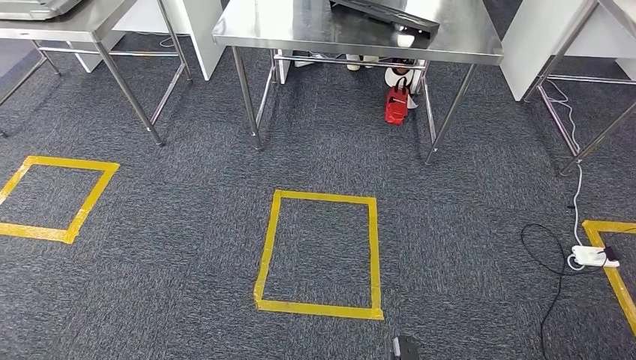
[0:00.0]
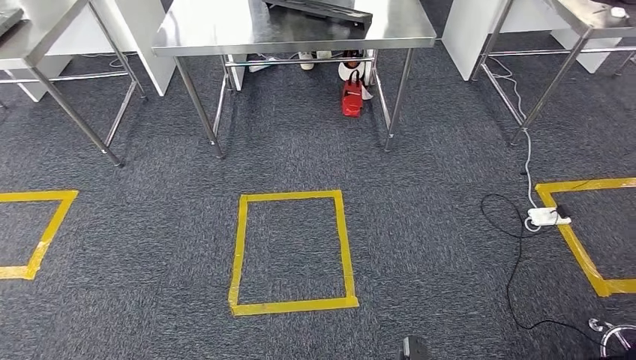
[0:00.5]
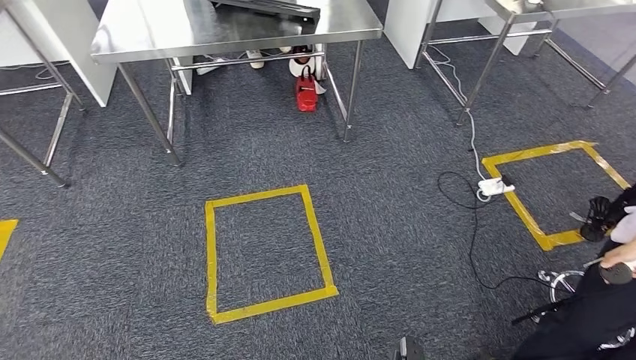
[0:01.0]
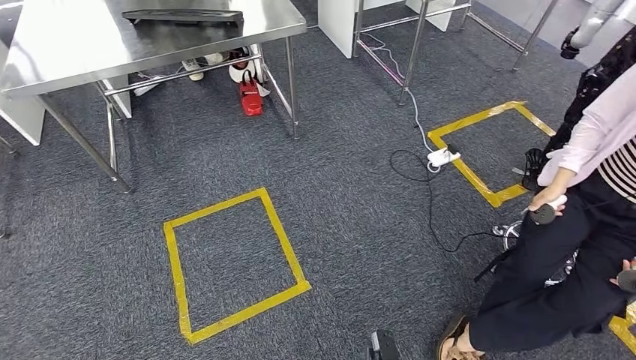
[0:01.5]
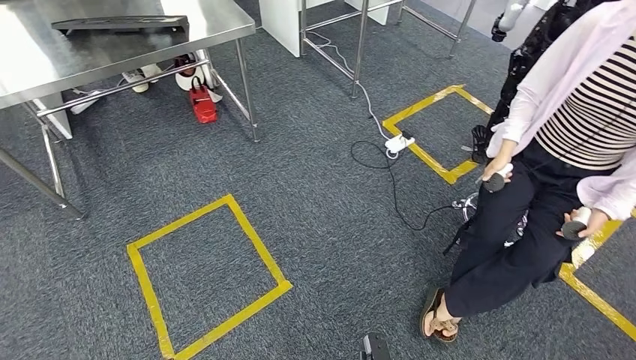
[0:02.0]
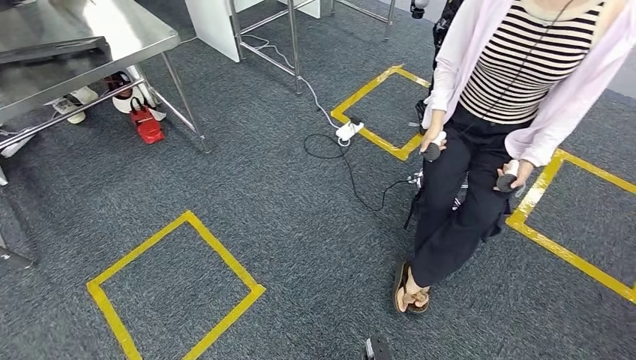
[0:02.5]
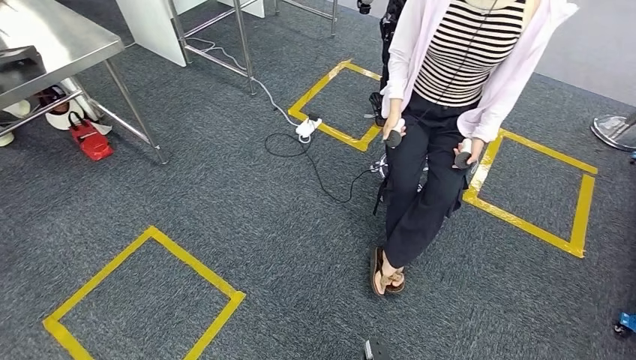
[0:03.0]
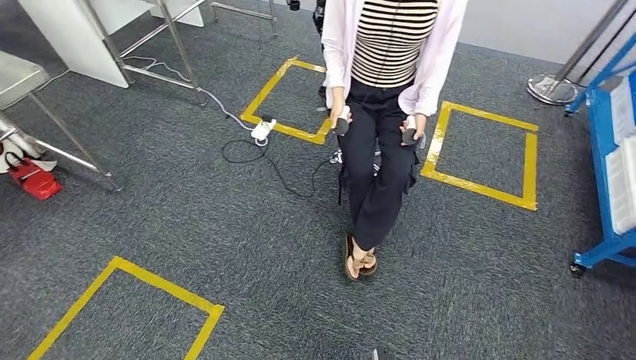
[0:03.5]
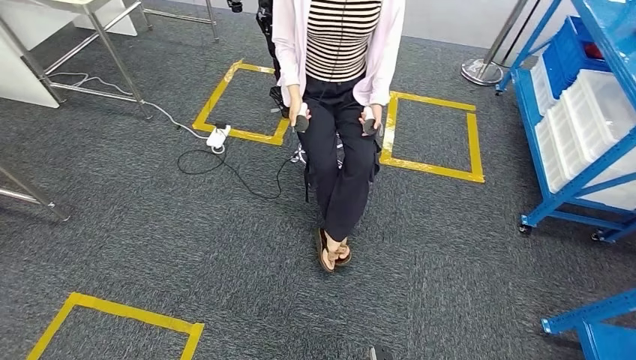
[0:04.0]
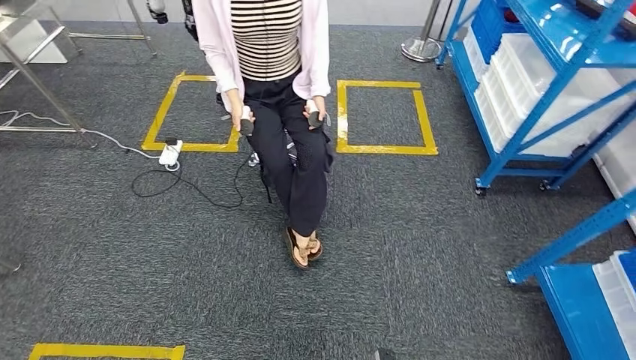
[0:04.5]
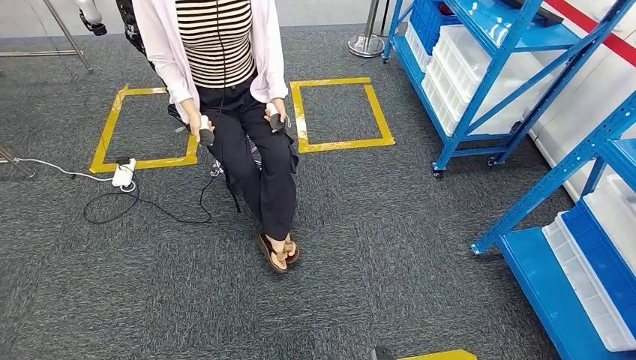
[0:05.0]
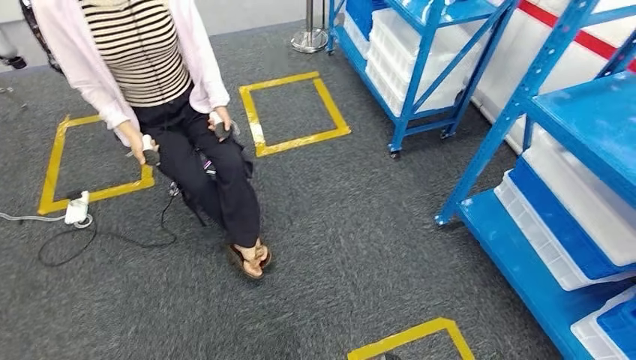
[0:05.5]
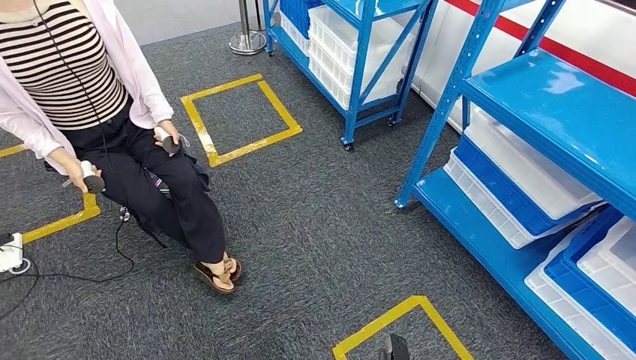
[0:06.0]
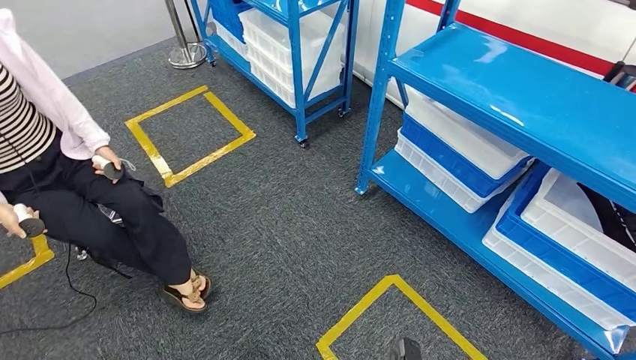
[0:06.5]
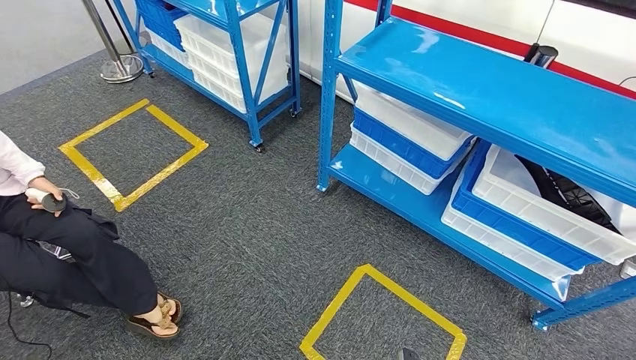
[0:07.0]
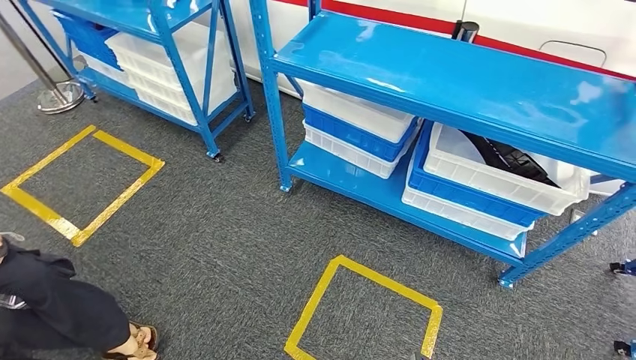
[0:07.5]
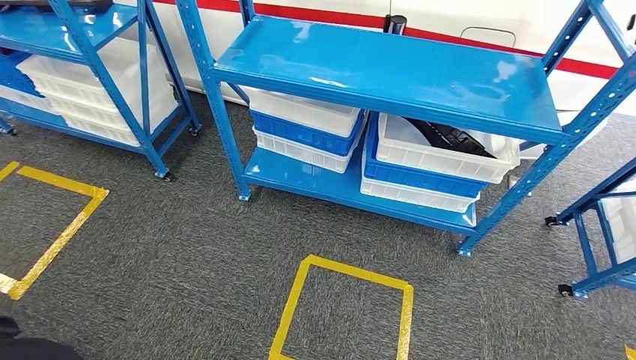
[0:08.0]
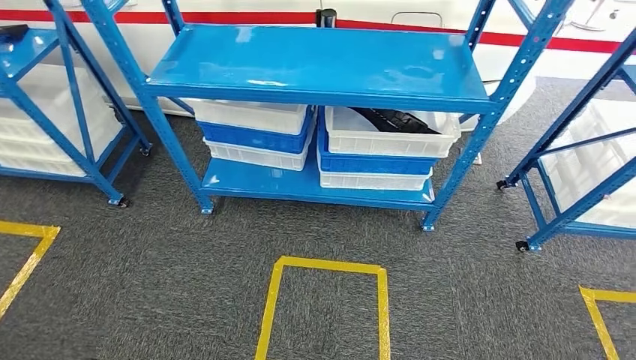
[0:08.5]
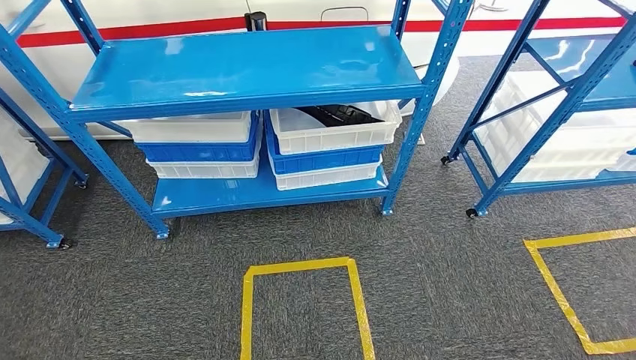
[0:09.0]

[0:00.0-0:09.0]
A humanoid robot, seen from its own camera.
Step, 0:00.0 to 0:08.5: Return to the initial position at the shelf.

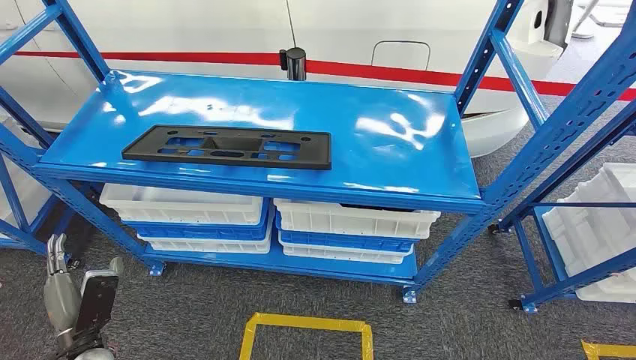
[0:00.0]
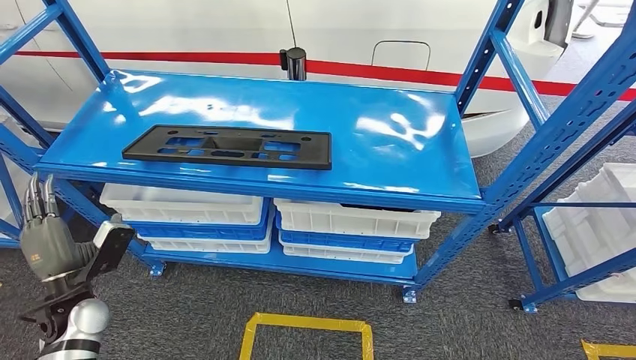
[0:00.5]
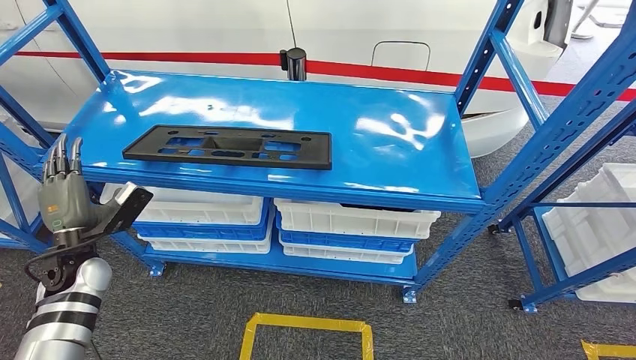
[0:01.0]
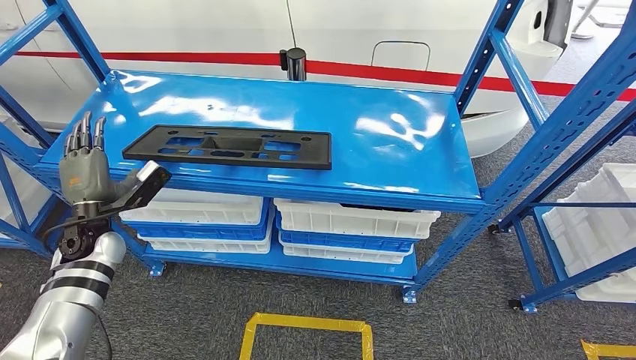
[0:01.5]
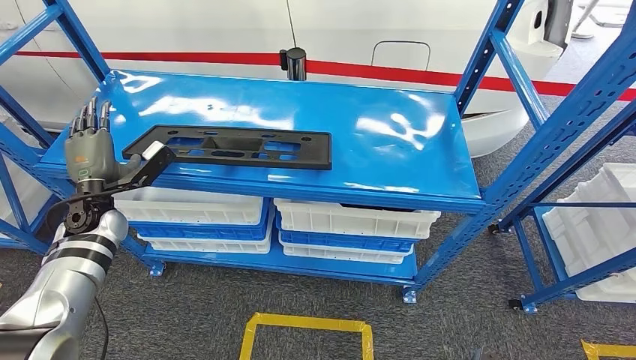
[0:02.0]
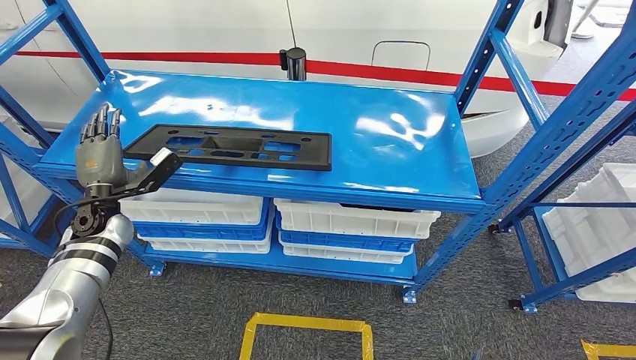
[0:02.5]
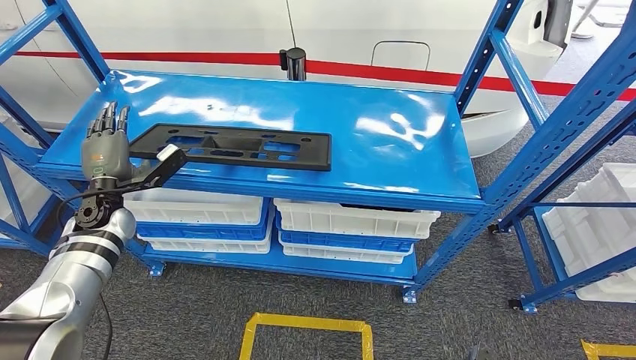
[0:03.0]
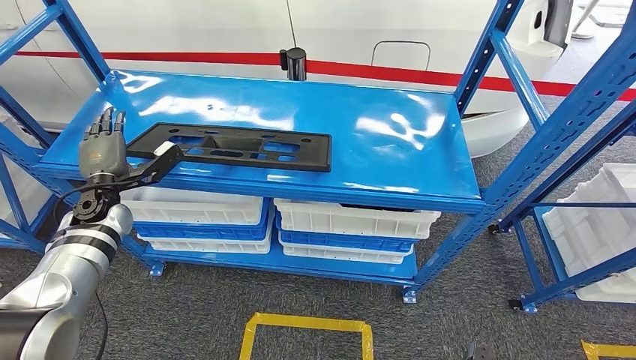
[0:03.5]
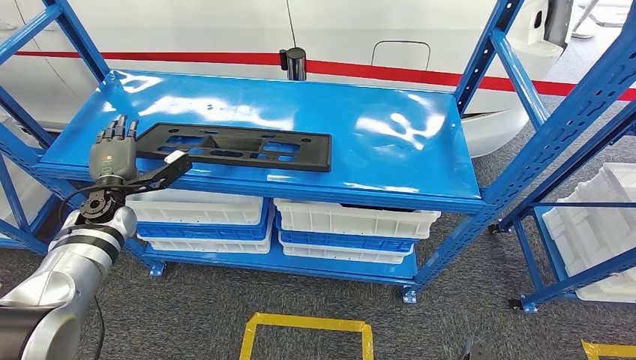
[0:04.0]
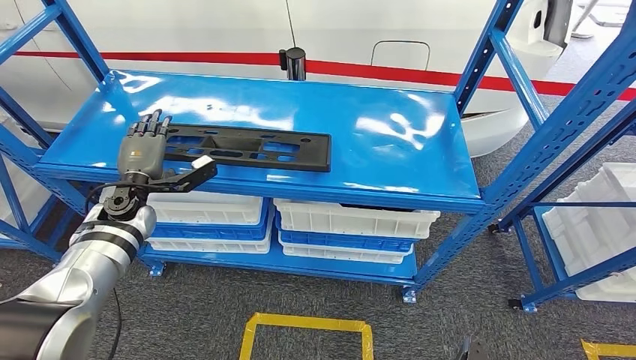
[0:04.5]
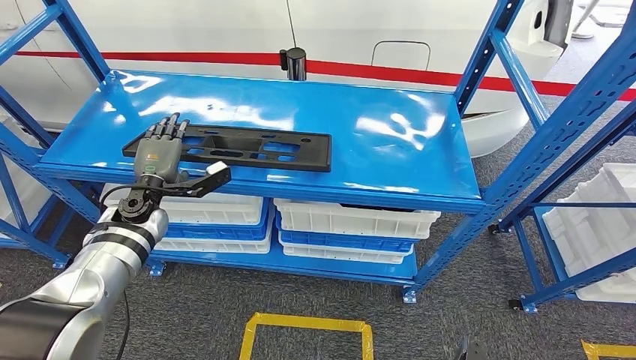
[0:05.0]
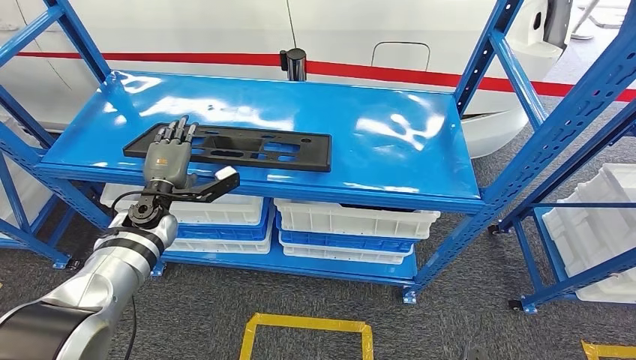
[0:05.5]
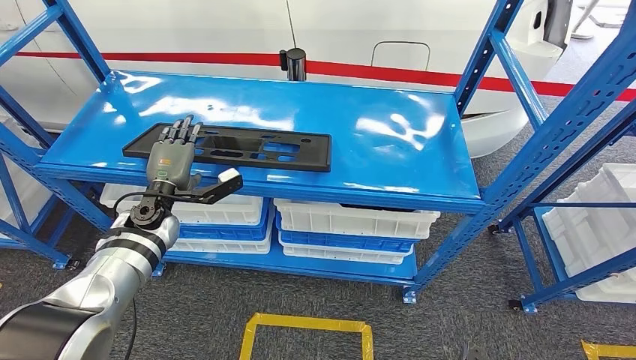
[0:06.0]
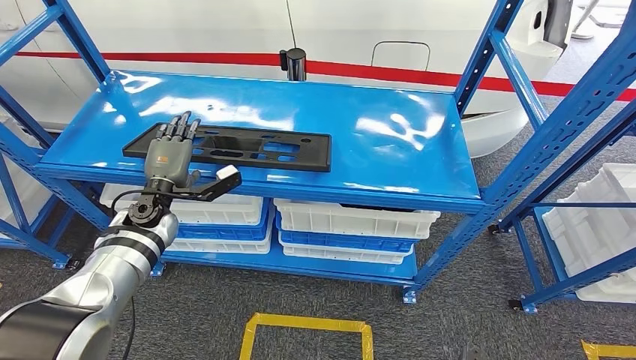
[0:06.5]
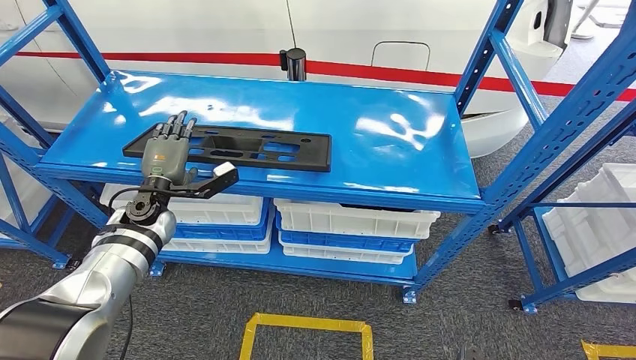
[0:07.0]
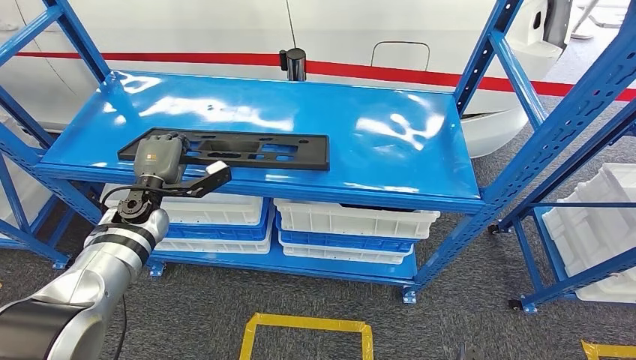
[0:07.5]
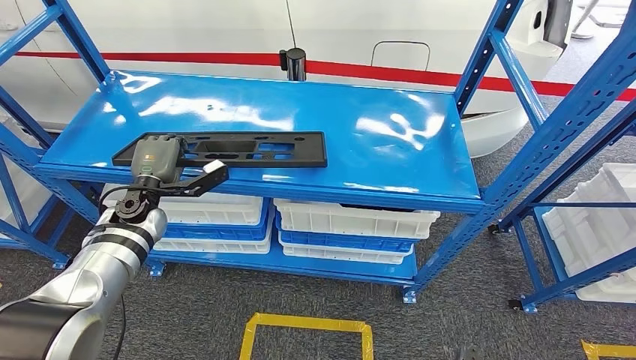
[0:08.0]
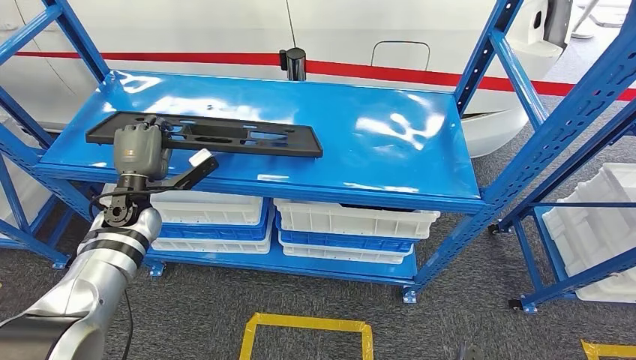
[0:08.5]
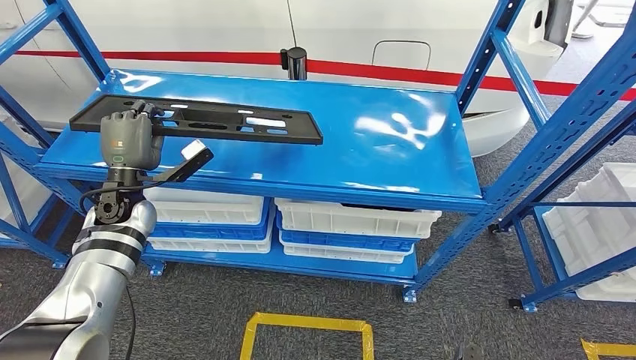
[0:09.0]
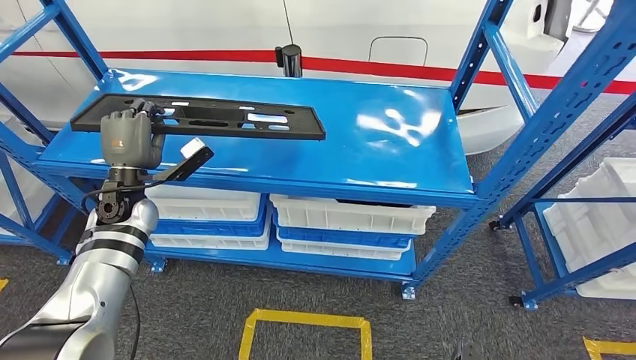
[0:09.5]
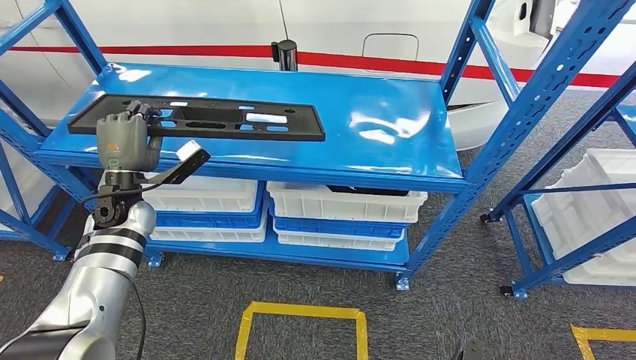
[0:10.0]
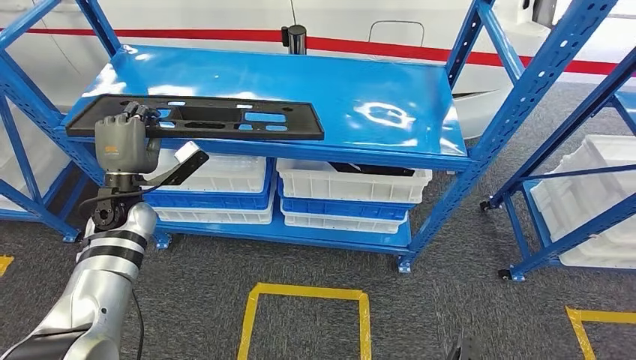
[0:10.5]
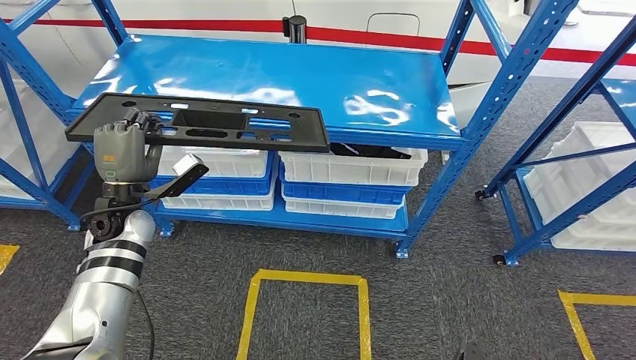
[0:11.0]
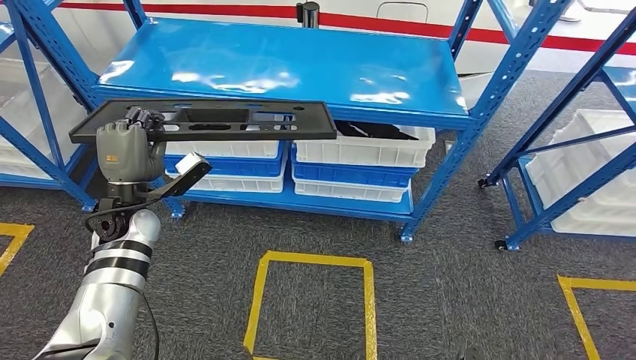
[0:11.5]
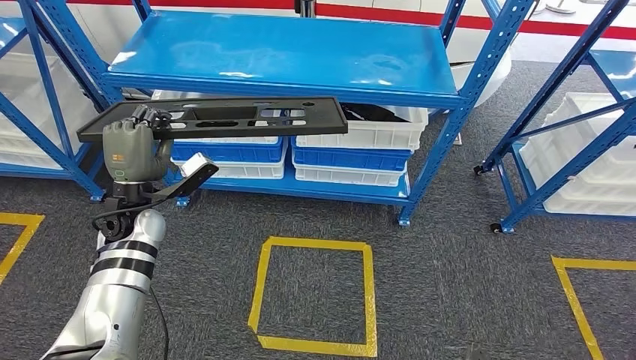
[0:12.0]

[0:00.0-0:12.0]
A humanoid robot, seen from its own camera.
Step, 0:00.0 to 0:09.0: Pick up the large material from the shelf.
0:04.0 to 0:06.0: The left hand goes some 10 cm to the right.
0:06.0 to 0:08.0: The hands move only a little.
